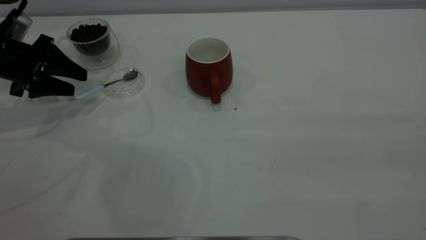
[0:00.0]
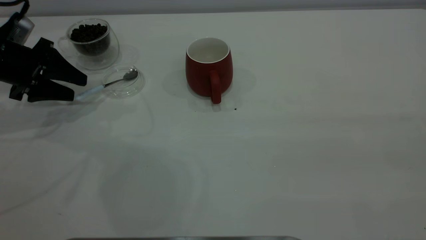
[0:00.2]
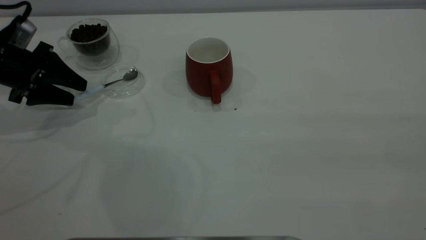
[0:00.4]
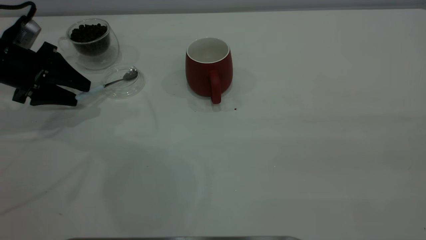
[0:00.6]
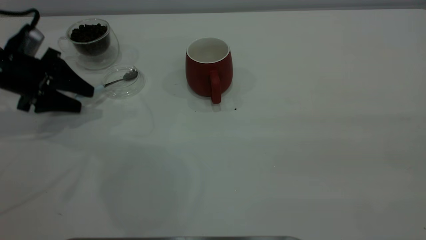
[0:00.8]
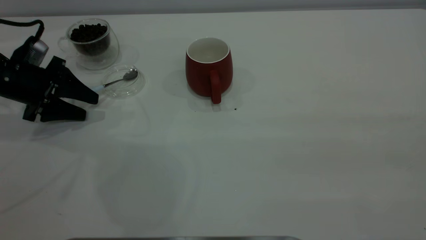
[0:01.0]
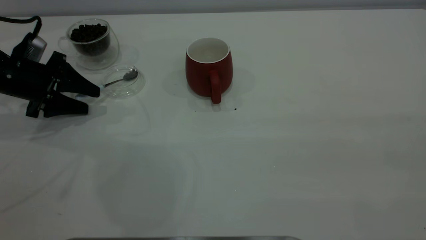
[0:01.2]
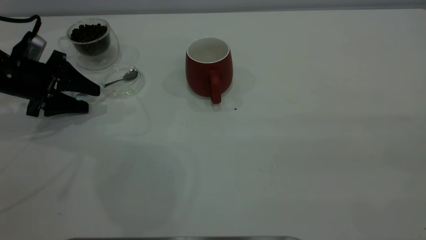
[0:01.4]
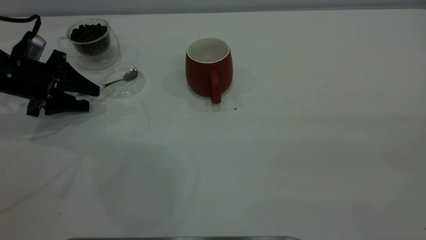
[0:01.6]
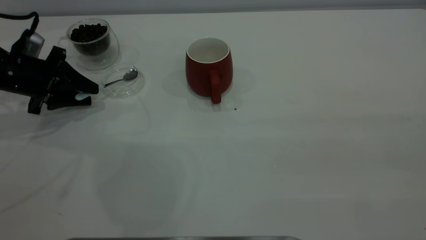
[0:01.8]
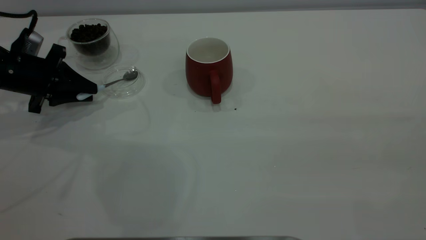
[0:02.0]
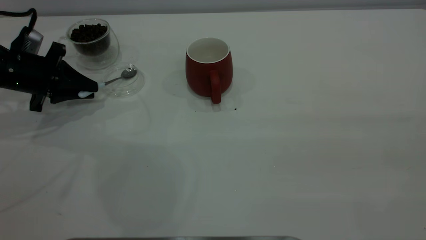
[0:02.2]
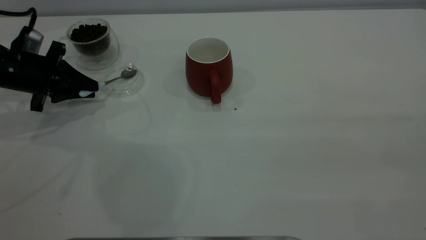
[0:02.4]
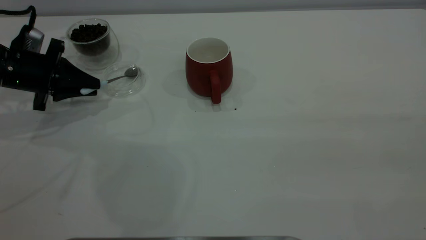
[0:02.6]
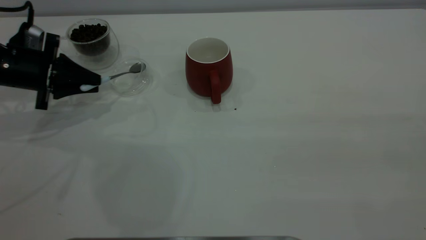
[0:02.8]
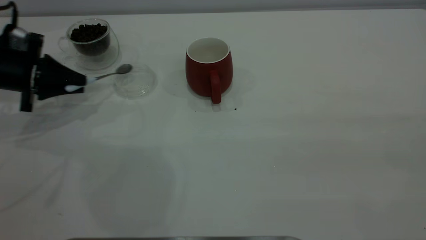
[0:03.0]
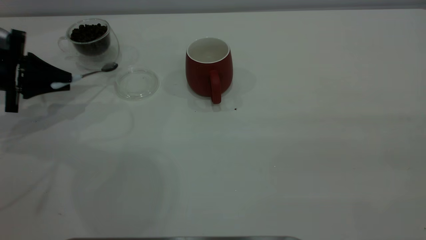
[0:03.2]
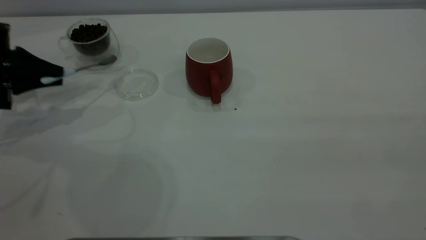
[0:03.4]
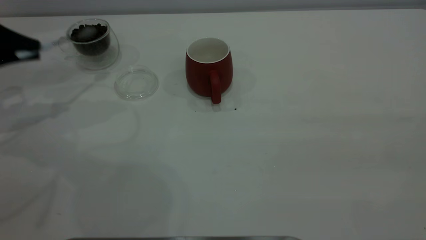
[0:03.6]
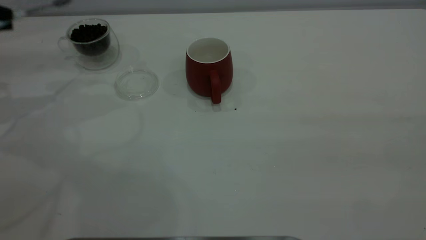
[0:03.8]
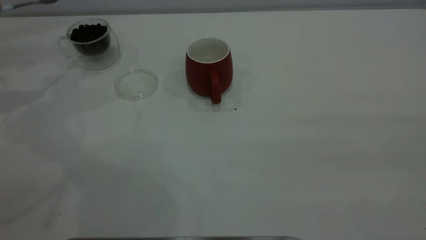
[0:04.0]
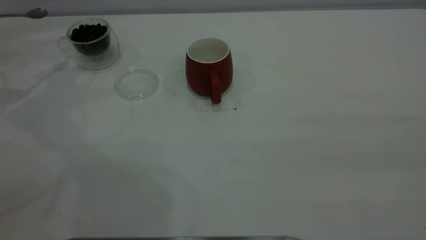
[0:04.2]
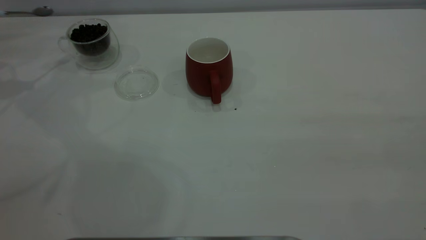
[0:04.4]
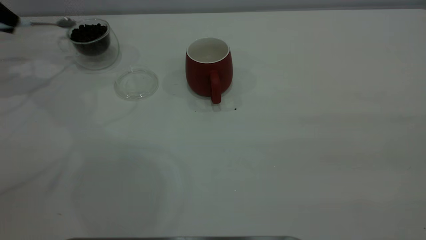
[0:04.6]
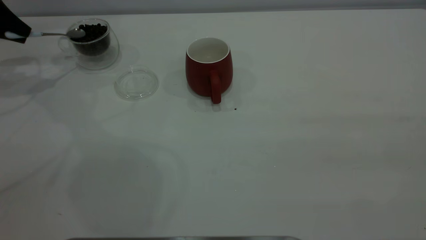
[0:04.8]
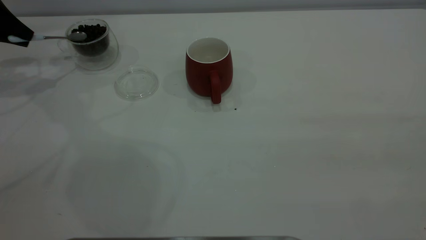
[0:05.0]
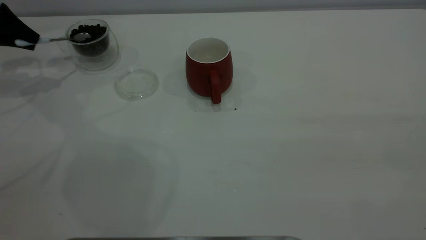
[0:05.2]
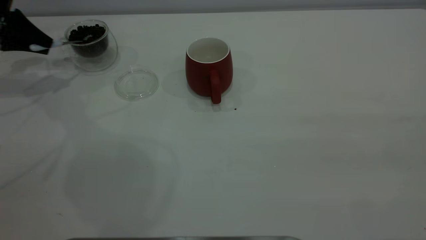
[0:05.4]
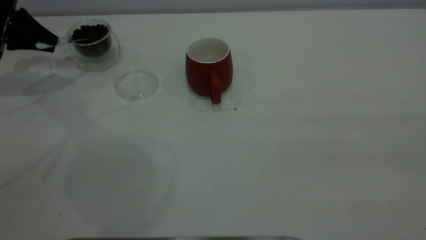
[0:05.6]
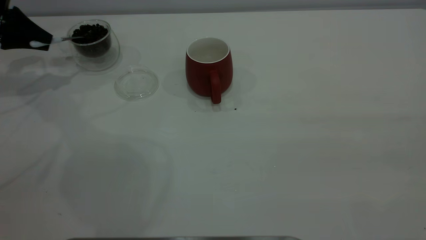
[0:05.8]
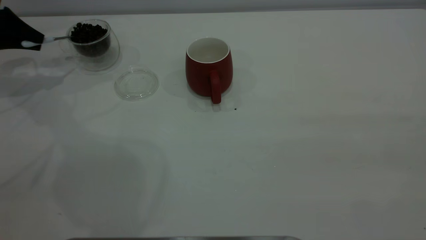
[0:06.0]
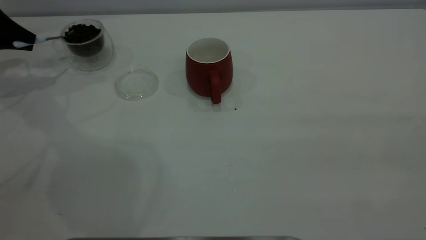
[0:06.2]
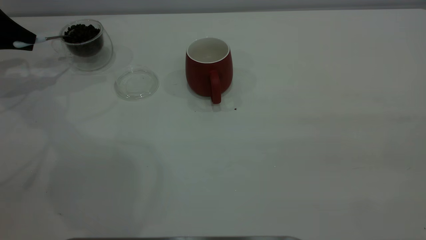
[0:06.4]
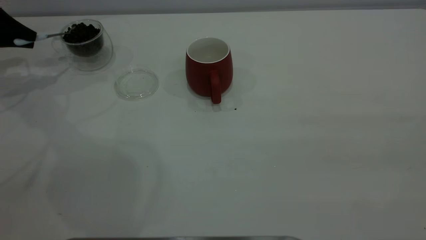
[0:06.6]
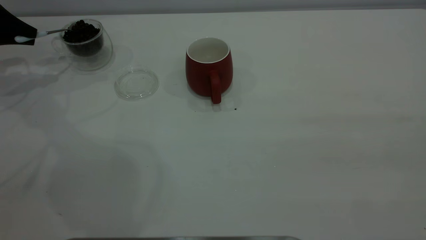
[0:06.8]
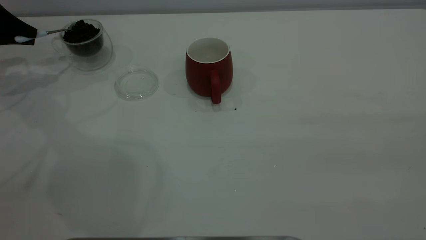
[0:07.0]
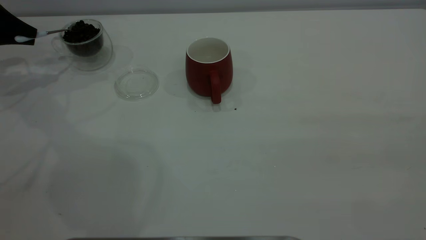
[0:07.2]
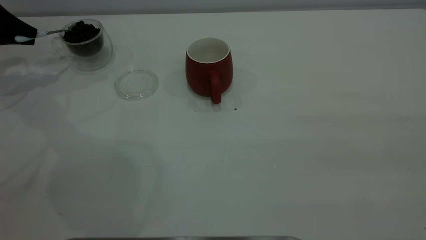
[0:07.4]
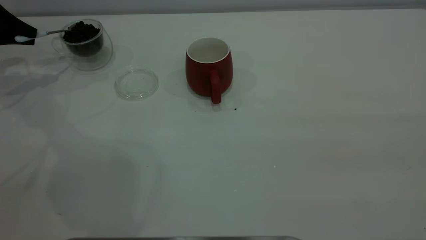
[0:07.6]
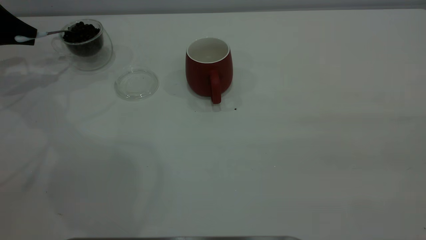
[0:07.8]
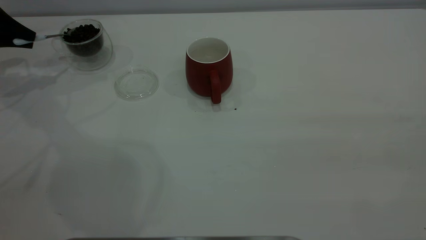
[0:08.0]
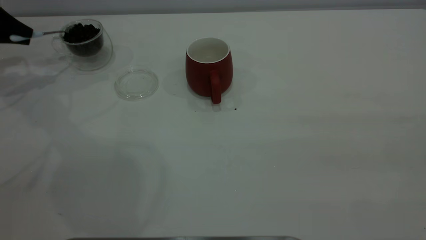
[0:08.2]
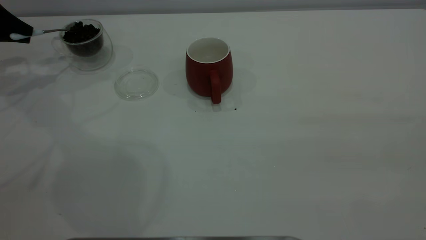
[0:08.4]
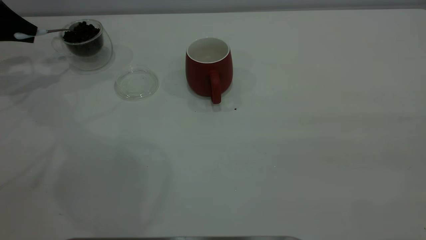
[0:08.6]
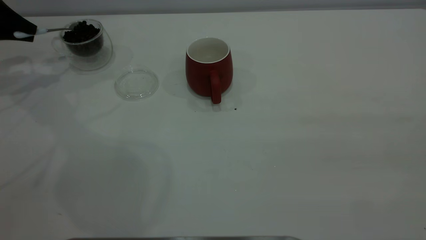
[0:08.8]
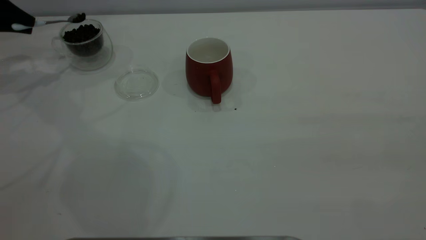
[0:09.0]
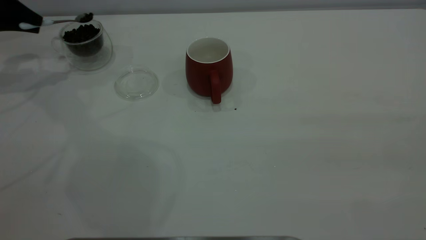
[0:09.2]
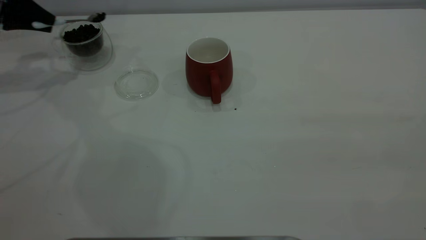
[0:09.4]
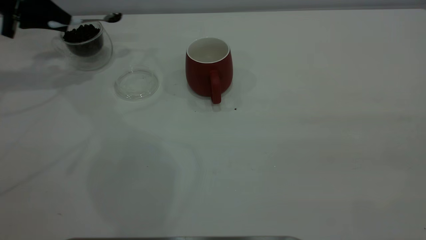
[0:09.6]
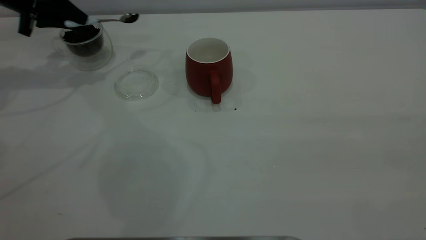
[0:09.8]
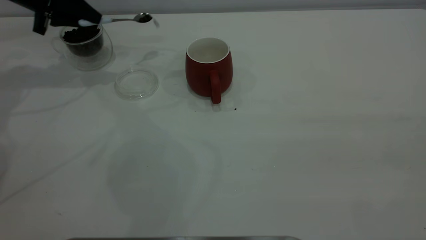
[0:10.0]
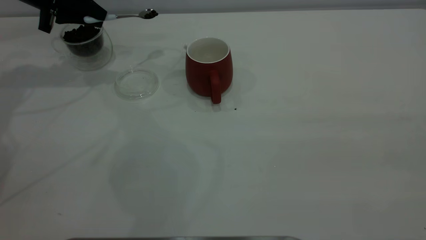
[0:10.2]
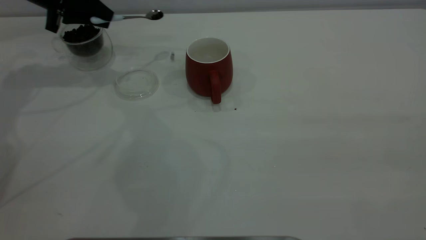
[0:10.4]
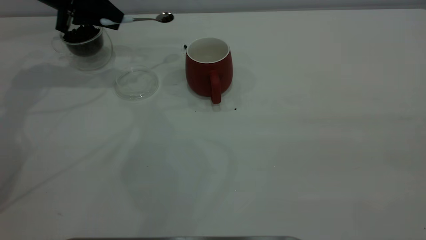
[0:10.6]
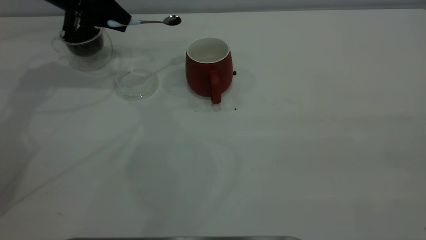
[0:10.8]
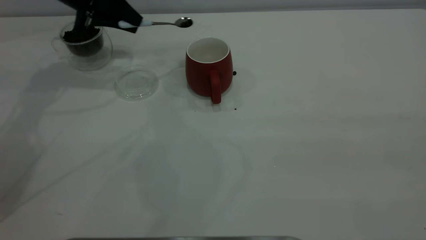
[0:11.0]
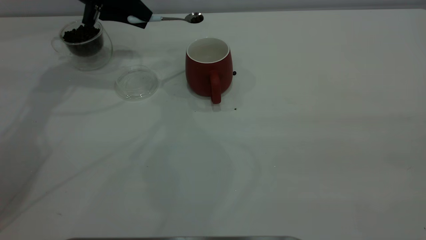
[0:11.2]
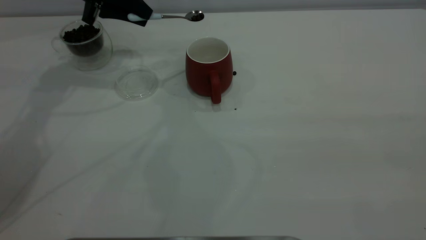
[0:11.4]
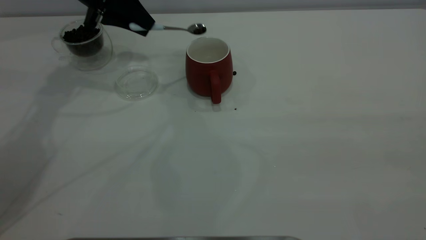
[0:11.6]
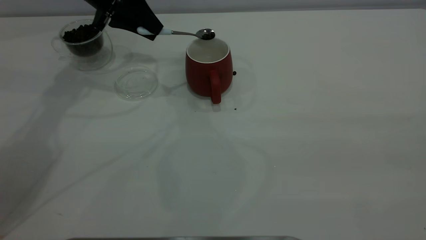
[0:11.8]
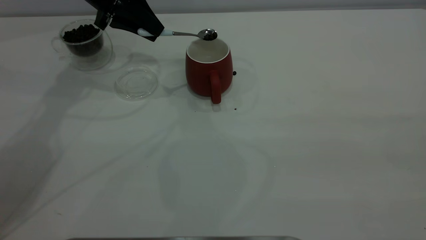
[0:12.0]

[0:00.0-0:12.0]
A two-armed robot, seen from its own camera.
Task of the whole recording: the right gripper place the red cup in the center of the table, the left gripper take the blue spoon from the cup lid and scoop out the coffee beans from the coffee cup and put them into the red cup, the left gripper put the spoon back into the cup lid.
Step, 0:00.0 to 0:03.2: Pick up the spoon.
0:00.0 to 0:01.6: The grippers move only a little.
0:01.6 to 0:03.0: The left gripper closes up.
0:03.0 to 0:04.4: The left gripper shifts roughly 20 cm upward, to the left and forward.
0:04.4 to 0:06.0: The left gripper shifts about 10 cm downward.
0:06.0 to 0:07.6: The two grippers keep their place.
0:07.6 to 0:09.0: The grippers move only a little.
0:09.0 to 0:10.4: The left gripper goes approximately 15 cm to the right.
0:10.4 to 0:12.0: The left gripper shifts approximately 10 cm to the right.

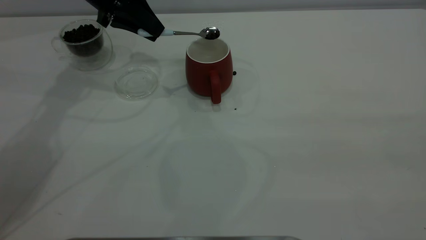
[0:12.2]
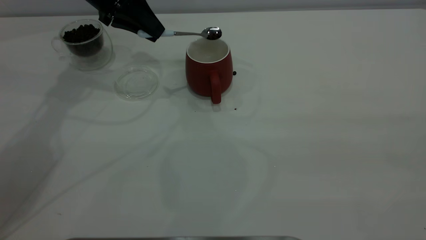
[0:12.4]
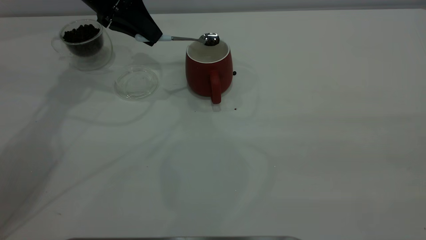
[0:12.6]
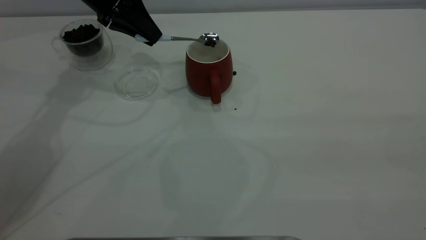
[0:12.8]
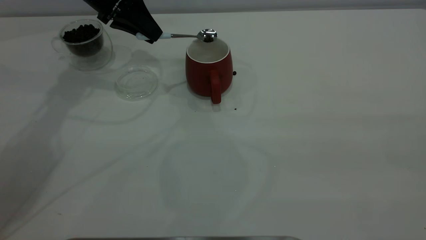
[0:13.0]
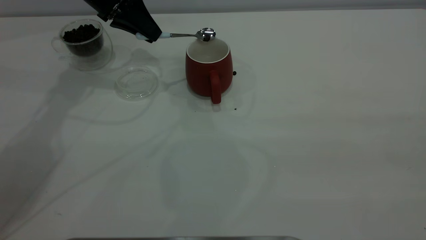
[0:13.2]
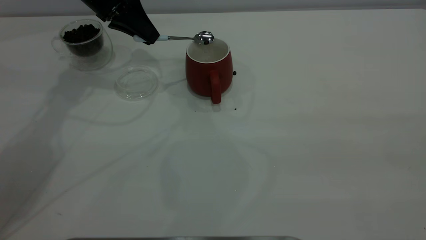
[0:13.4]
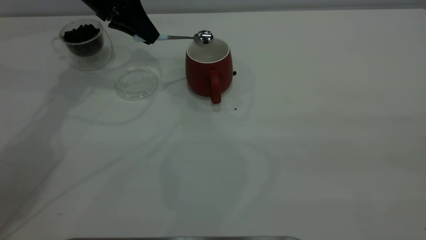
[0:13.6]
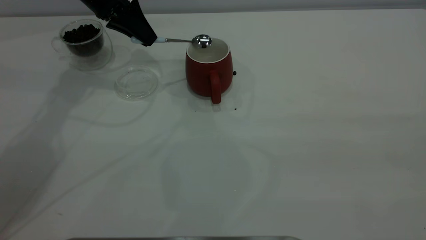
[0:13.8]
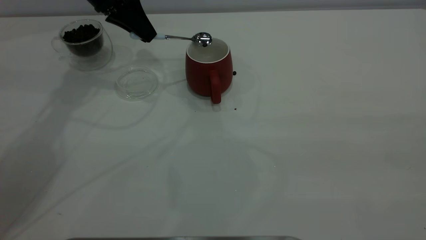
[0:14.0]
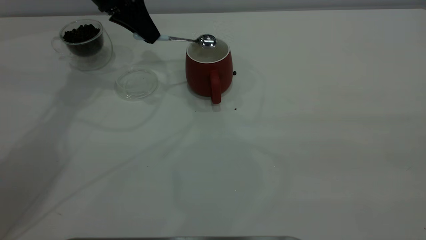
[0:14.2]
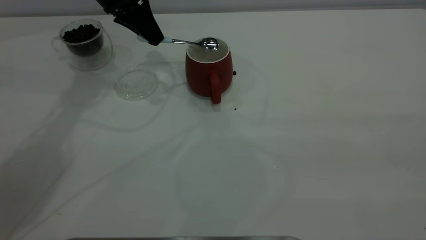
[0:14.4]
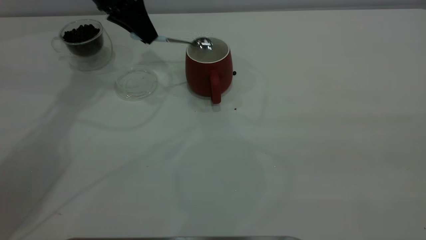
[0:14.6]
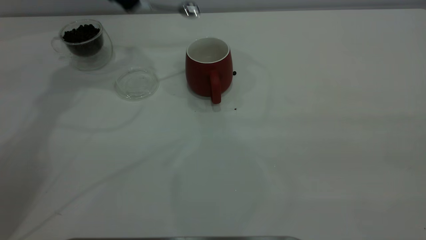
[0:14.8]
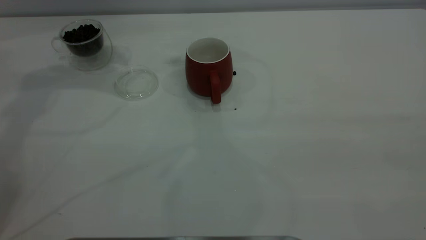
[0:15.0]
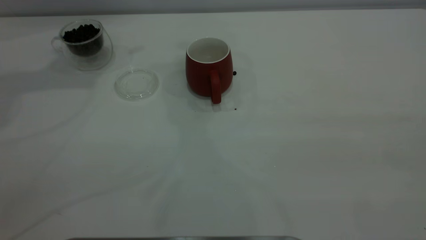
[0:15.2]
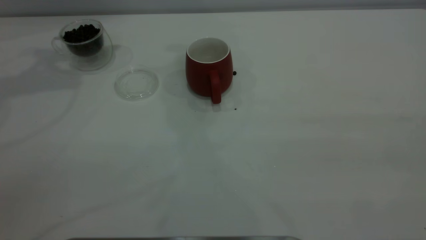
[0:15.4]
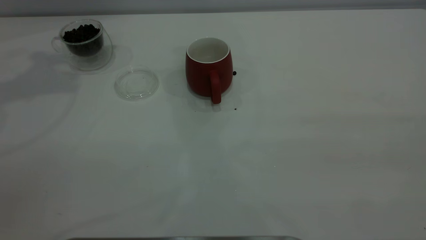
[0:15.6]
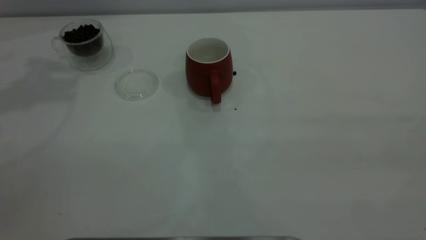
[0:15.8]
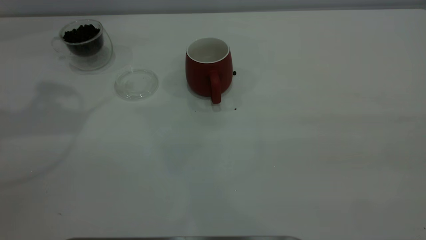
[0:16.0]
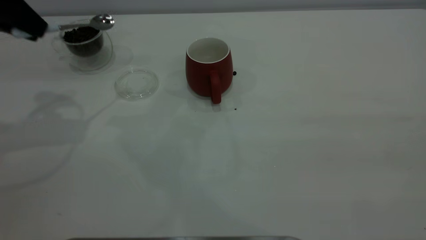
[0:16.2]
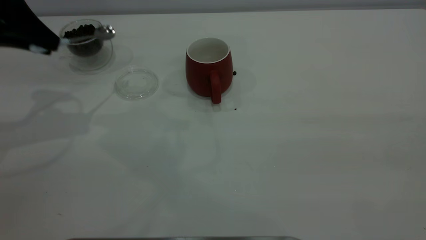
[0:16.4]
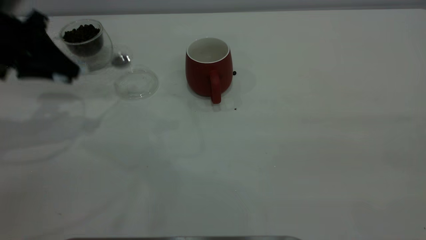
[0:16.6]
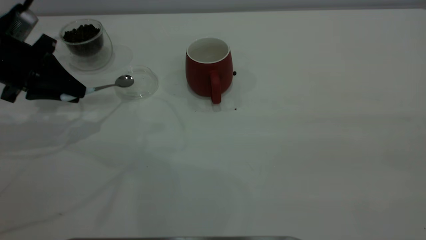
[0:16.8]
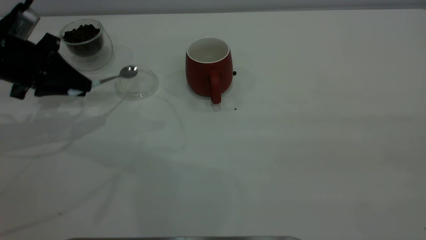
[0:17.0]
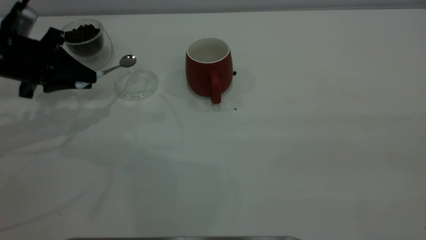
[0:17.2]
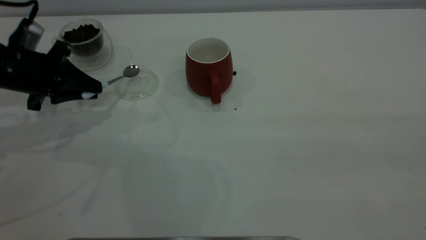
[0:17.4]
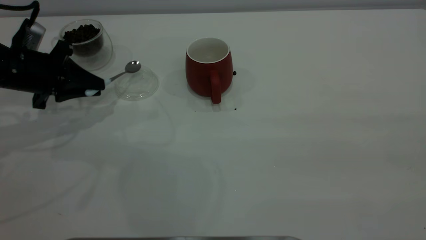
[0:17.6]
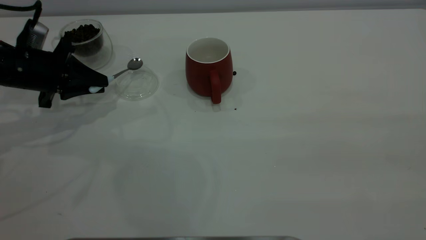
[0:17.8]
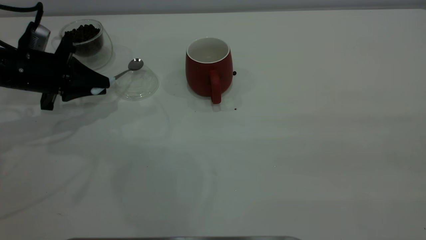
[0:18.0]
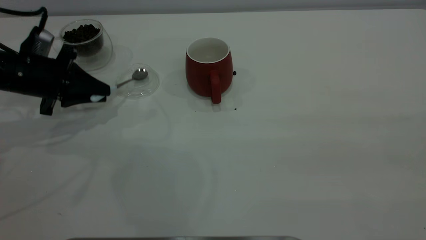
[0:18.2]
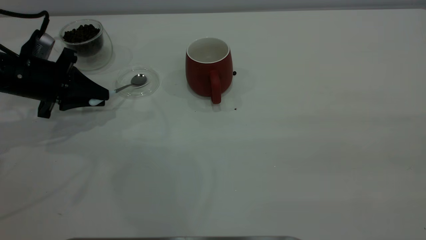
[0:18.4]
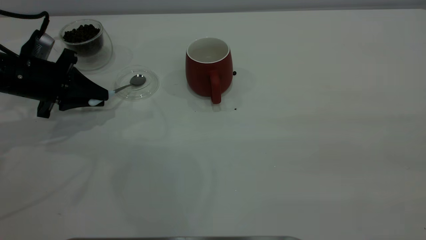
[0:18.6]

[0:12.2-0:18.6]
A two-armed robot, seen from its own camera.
Task of the whole recording: the right gripper place the red cup in the center of the table, the left gripper take the blue spoon from the cup lid and scoop out the coffee beans from the coffee cup and put them into the red cup, the left gripper put the spoon back into the cup lid.
Step, 0:12.2 to 0:14.6: Scoop a spoonful of beans into the cup.
0:12.2 to 0:13.8: There are only small adjustments of the grippers.
0:13.8 to 0:15.4: The left gripper heads upward and to the left, covering about 25 cm.
0:15.4 to 0:17.0: The left gripper moves downward, about 25 cm.
0:17.0 to 0:18.6: The left gripper shifts roughly 5 cm downward.
